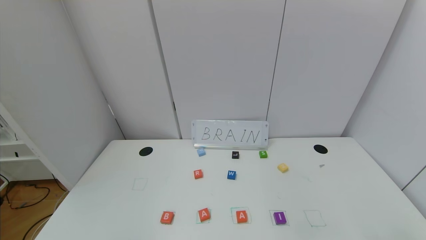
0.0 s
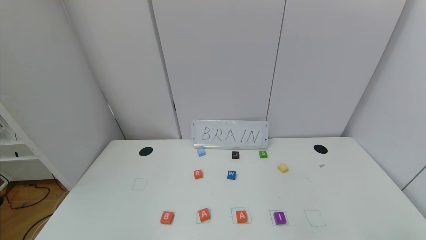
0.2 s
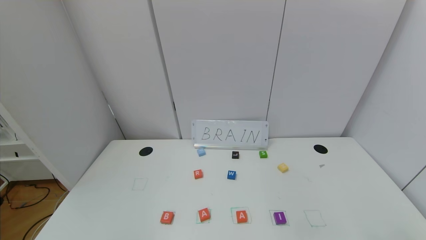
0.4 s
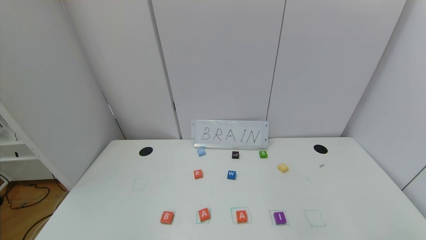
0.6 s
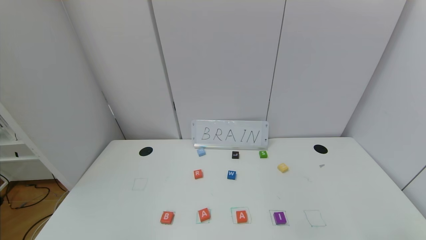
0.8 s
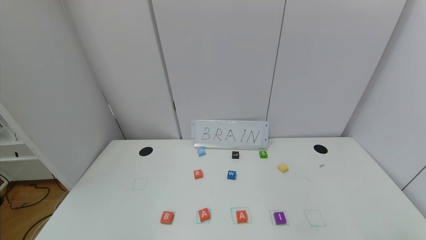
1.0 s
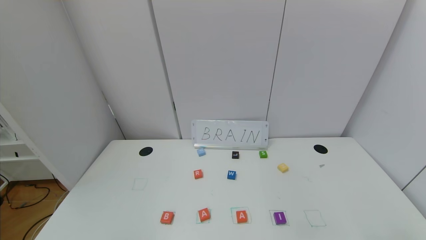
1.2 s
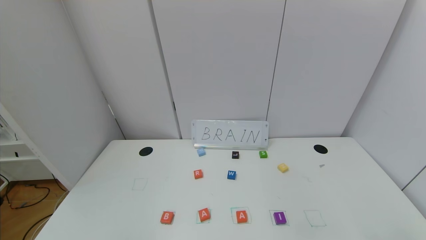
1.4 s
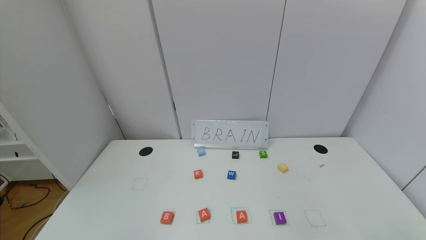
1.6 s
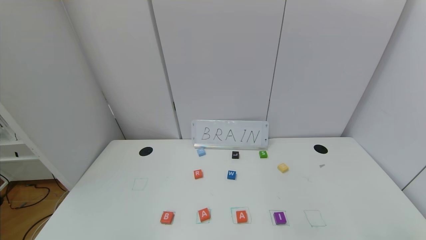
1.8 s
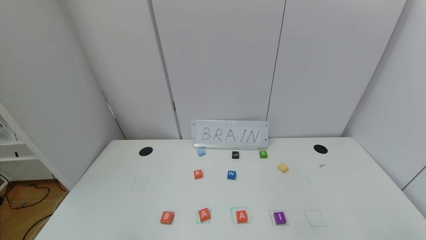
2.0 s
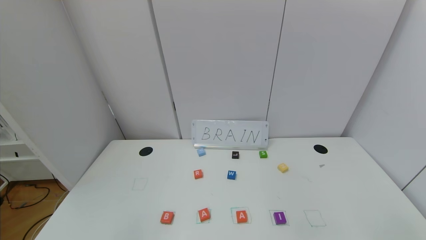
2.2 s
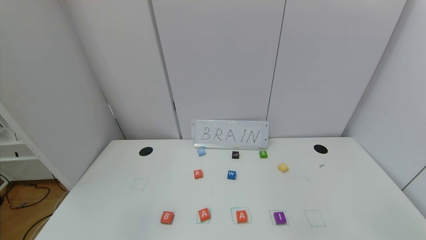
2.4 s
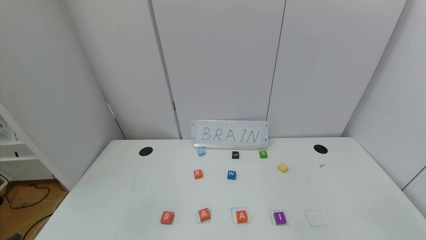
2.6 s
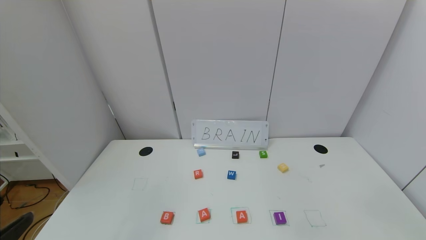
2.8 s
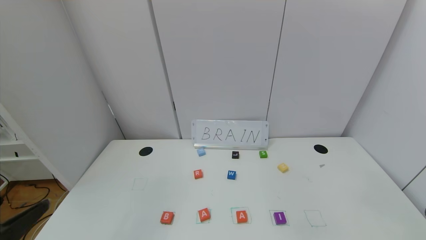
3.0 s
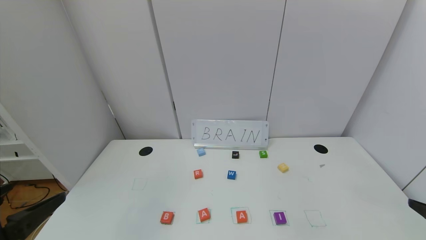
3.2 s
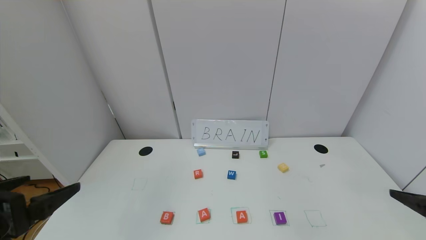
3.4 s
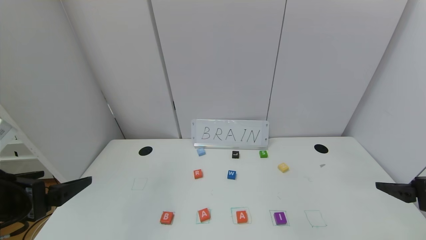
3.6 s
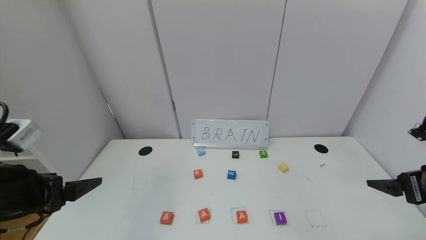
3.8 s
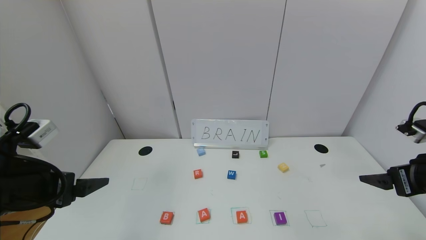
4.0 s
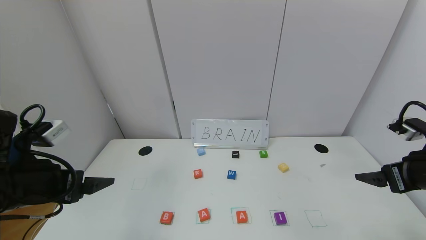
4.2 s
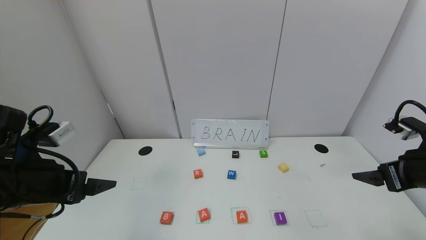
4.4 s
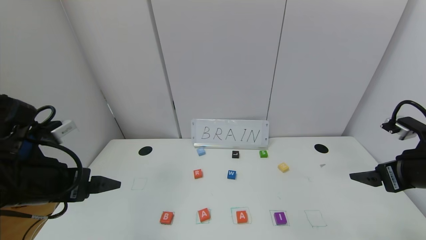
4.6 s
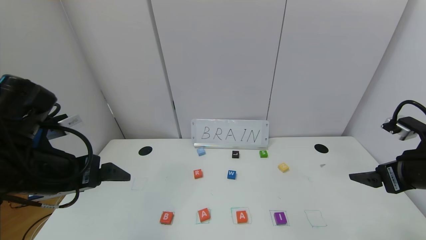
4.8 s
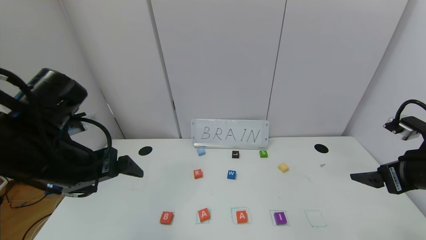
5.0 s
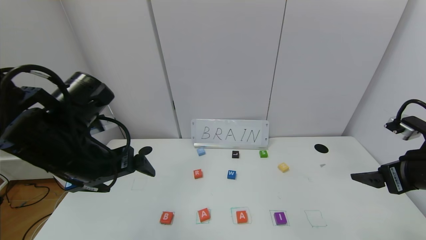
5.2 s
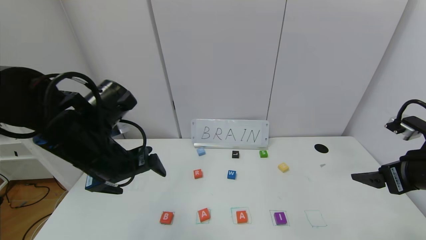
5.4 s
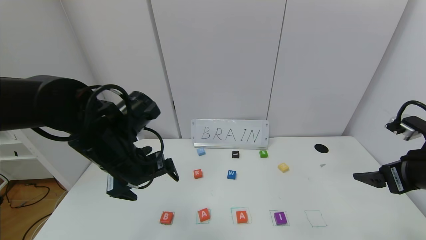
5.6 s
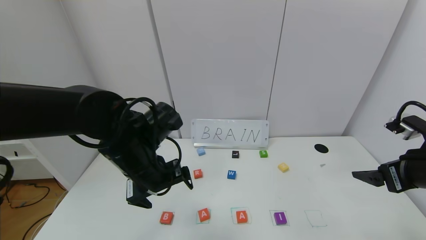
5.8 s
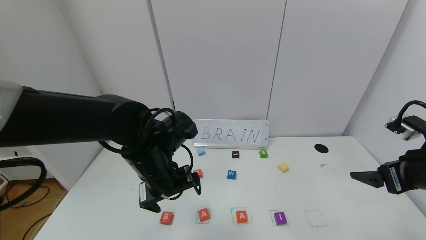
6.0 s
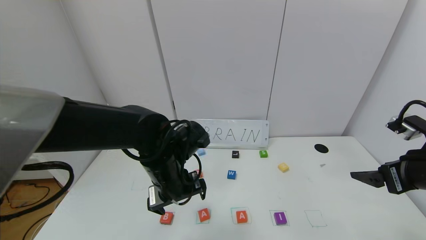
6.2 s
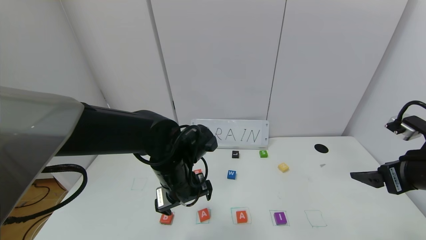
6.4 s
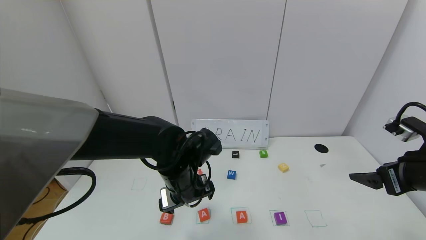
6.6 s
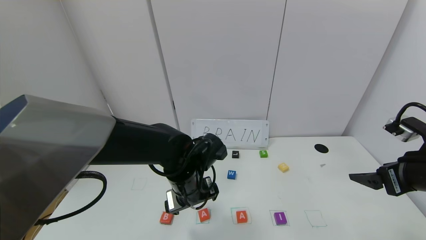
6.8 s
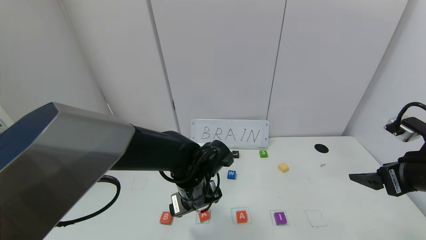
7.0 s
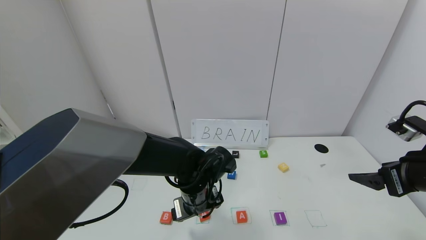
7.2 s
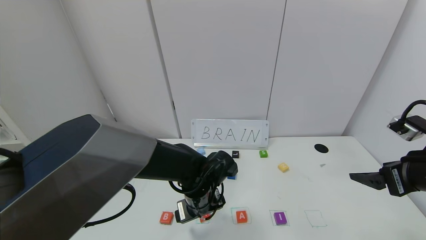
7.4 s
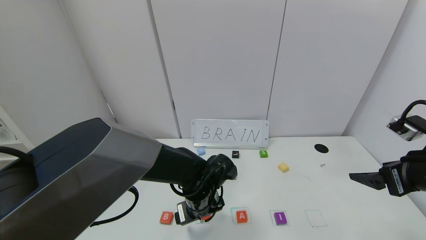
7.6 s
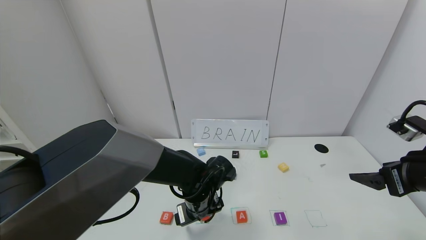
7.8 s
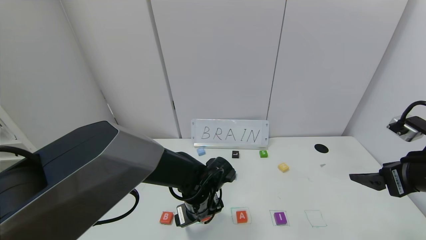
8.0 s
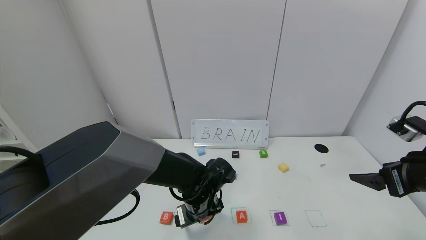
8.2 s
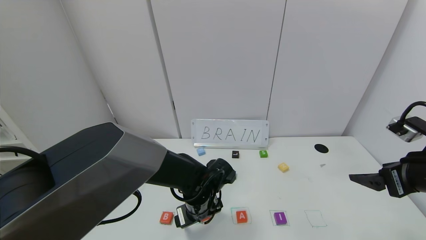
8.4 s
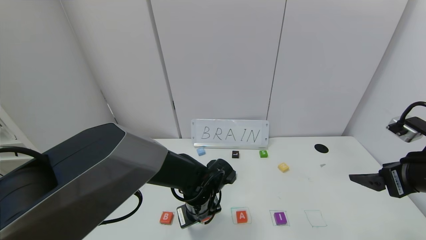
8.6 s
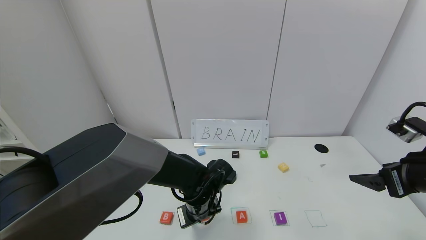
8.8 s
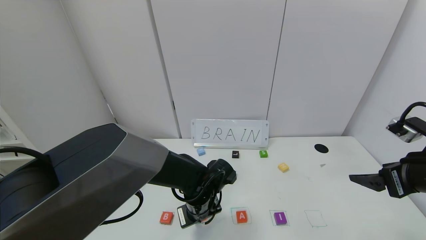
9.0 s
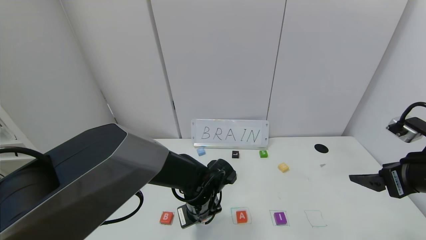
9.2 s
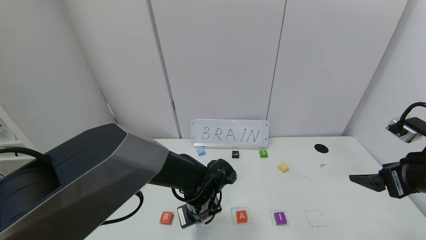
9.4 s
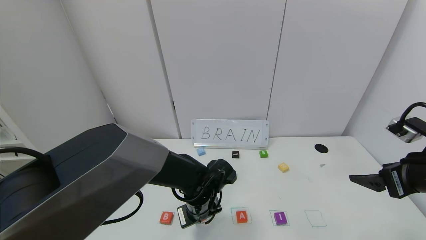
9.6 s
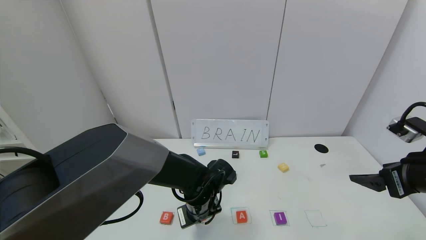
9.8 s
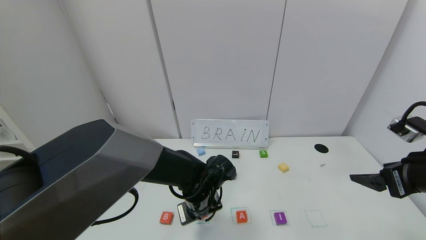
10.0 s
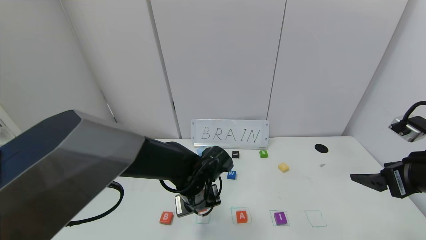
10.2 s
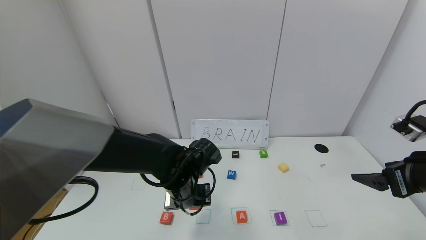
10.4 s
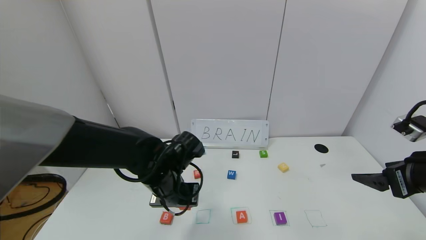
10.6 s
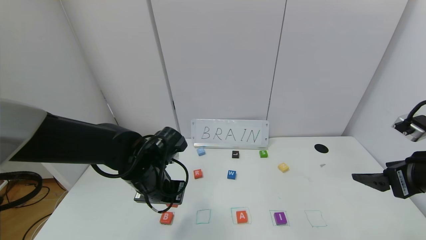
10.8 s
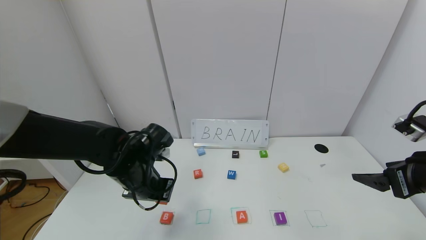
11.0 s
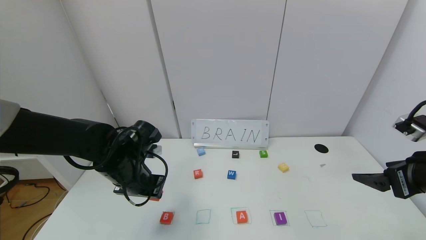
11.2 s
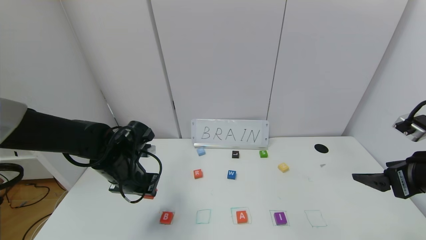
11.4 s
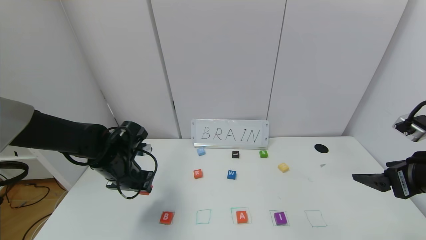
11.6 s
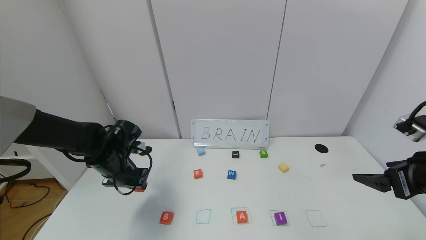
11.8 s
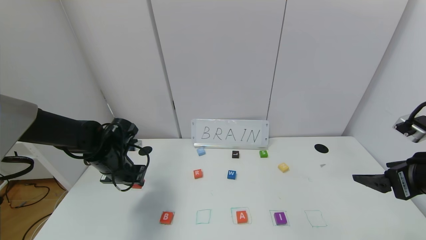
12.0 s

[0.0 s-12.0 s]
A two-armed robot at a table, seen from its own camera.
Task of the whole recording: use the gripper to find blocks with the letters b, a, a, and i on the table and arrange them into BAAI, then find r and N and turn the arranged baai into brian.
0.0 to 1.6 s: Neither gripper changes place.
1.6 to 3.0 s: The left gripper travels upward and forward by some 15 cm.
3.0 to 4.4 s: Both grippers move forward, about 15 cm.
4.4 to 6.0 s: The left gripper moves to the right and forward, roughly 20 cm.
6.0 to 7.6 s: The left gripper is displaced downward and to the right by roughly 15 cm.
7.6 to 9.0 s: The left gripper closes its fingers.
9.0 to 10.4 s: The left gripper travels upward by approximately 5 cm.
10.4 to 12.0 s: The left gripper goes about 20 cm to the left.

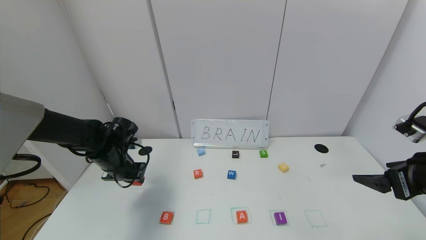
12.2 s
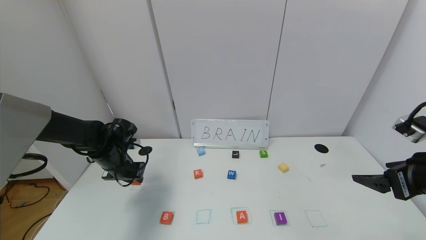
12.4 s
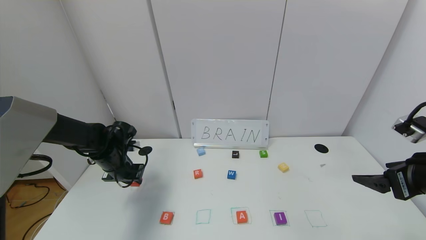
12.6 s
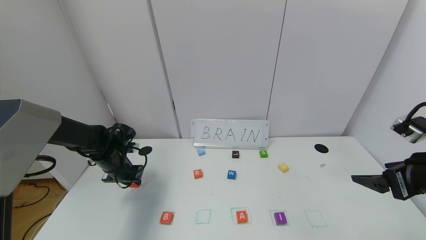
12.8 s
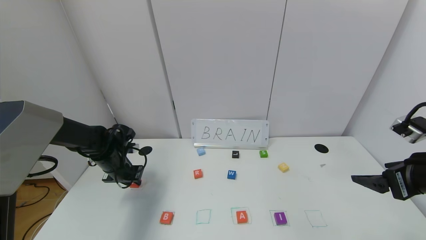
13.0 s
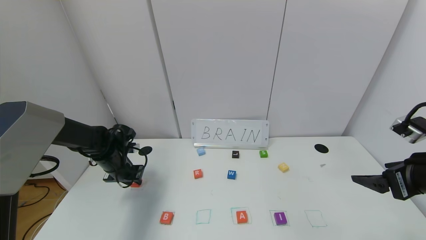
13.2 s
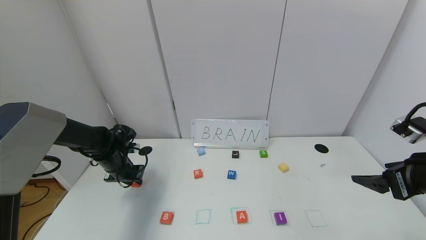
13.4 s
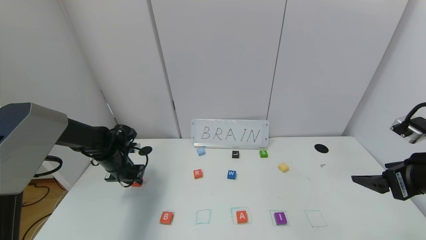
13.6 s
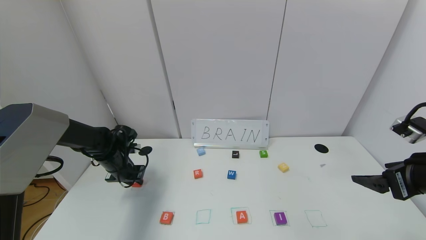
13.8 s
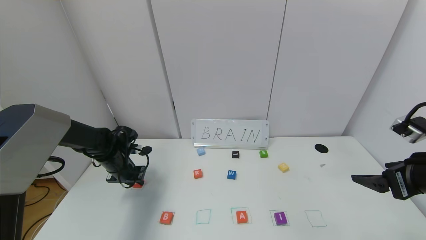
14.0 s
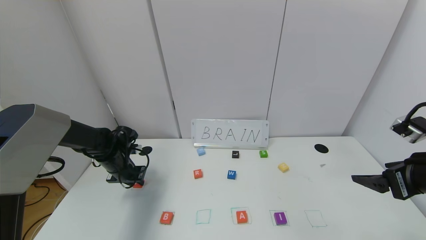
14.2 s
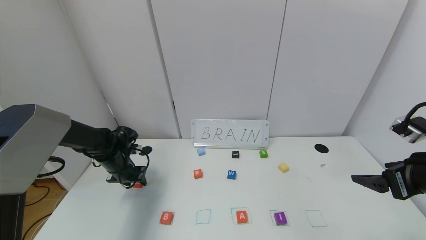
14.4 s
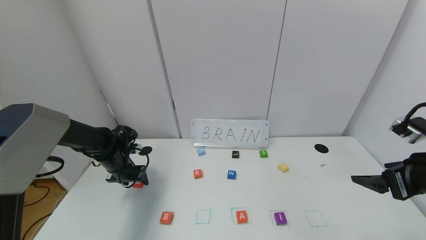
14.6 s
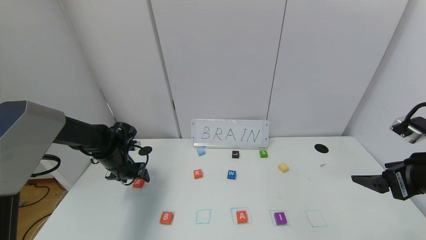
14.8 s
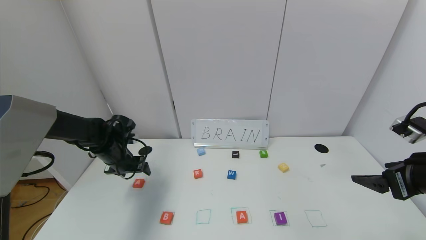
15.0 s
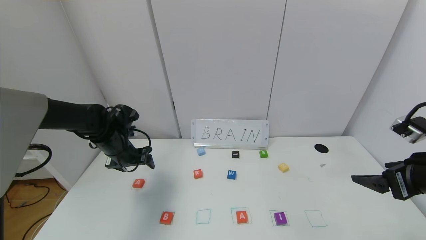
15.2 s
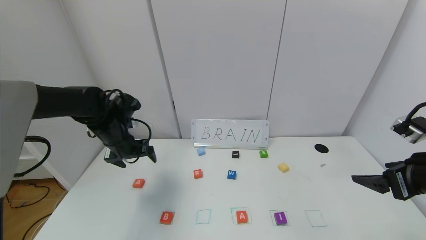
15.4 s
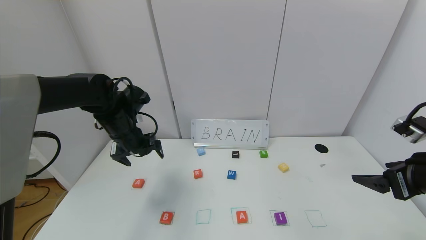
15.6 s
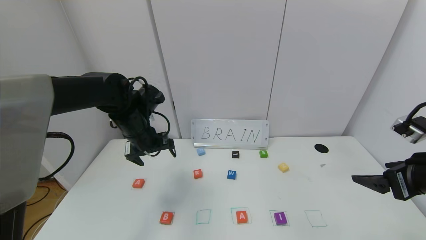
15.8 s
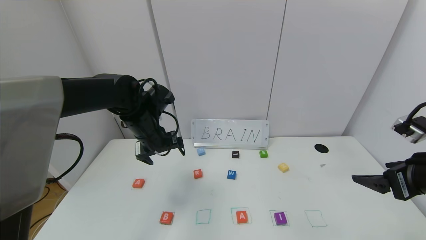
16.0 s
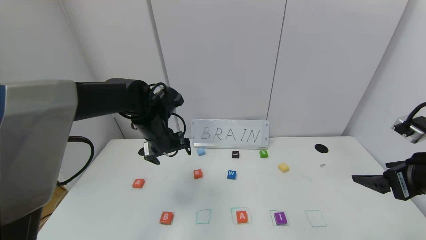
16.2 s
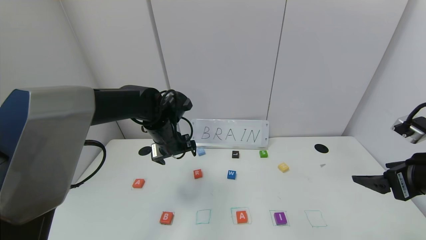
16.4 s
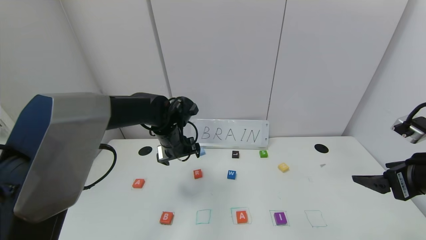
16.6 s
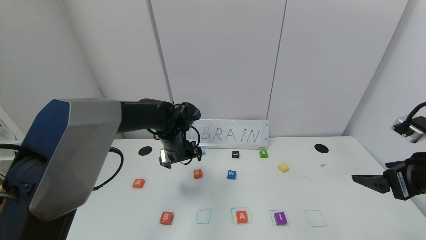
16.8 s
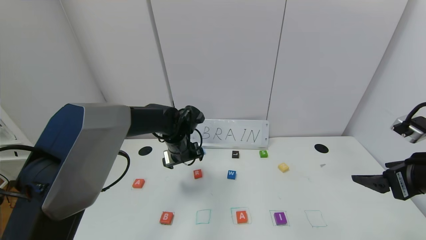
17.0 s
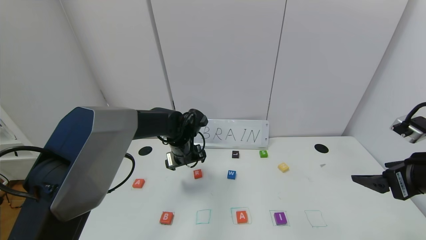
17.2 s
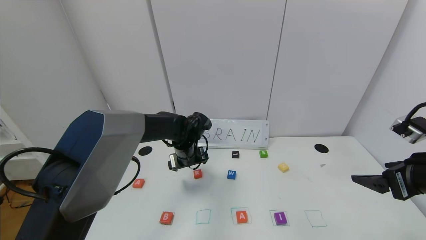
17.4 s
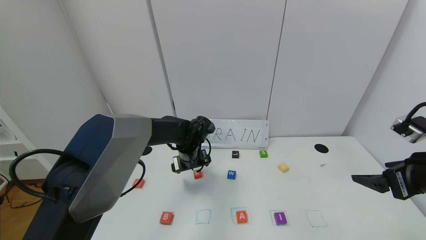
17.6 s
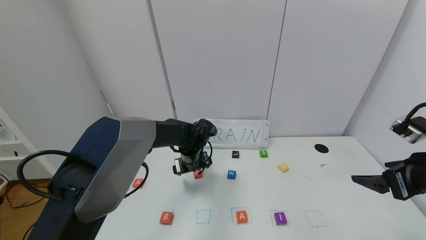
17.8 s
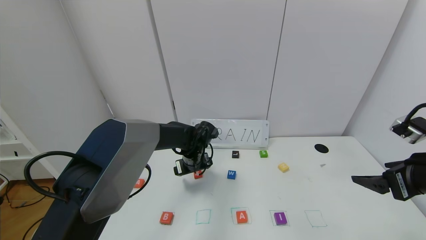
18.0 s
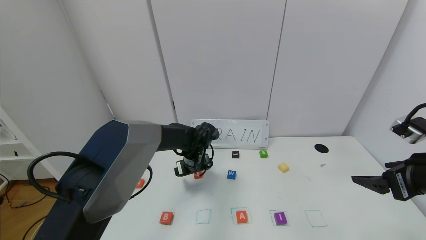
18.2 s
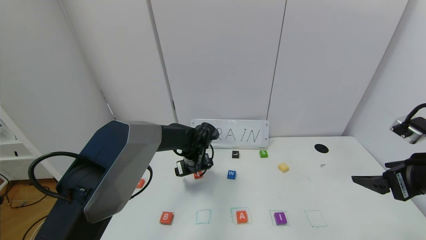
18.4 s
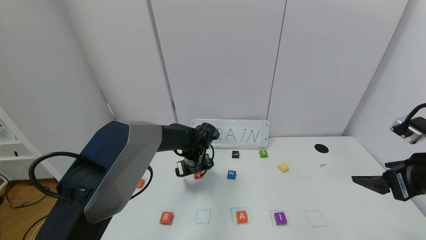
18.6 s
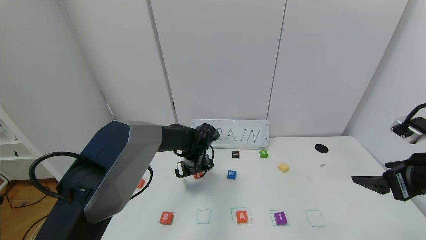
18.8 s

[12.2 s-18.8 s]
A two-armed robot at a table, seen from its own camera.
Task of the whole recording: use the gripper to find blocks with the letters b, a, a, and i on the table and arrange them into BAAI, then find r and N and turn the arranged baai into brian.
Step, 12.2 to 14.6 s: Move the block A out of the second location.
12.2 to 13.8 s: The left gripper changes place by some 5 cm.
13.8 to 15.4 s: The left gripper goes some 10 cm upward, and opens.
15.4 to 17.2 s: The left gripper is displaced to the right by about 15 cm.
17.2 to 18.8 s: The left gripper moves some 5 cm.
